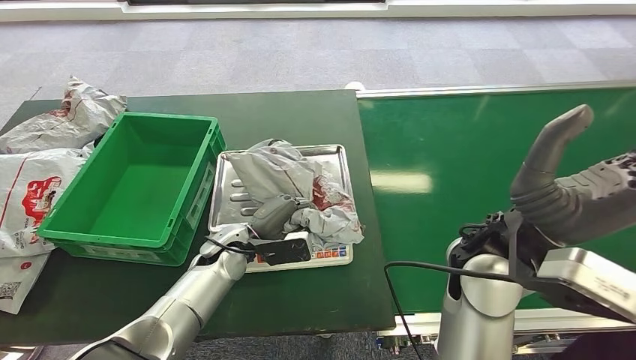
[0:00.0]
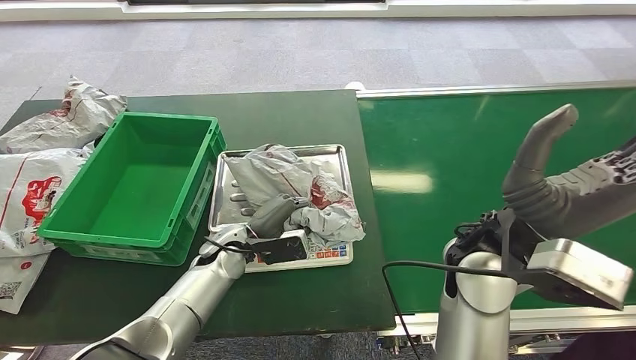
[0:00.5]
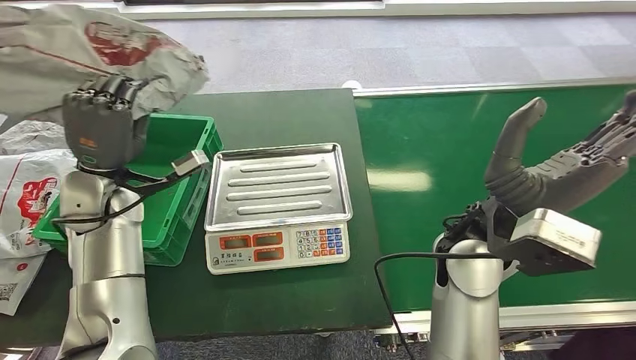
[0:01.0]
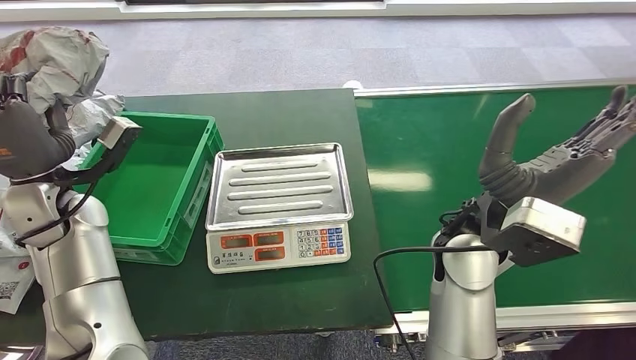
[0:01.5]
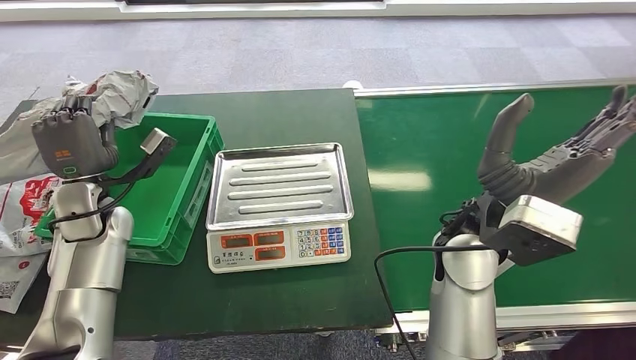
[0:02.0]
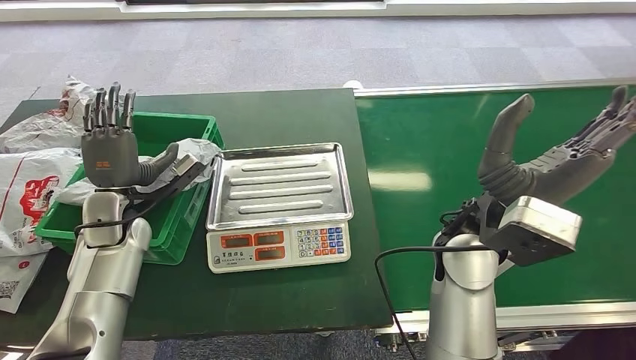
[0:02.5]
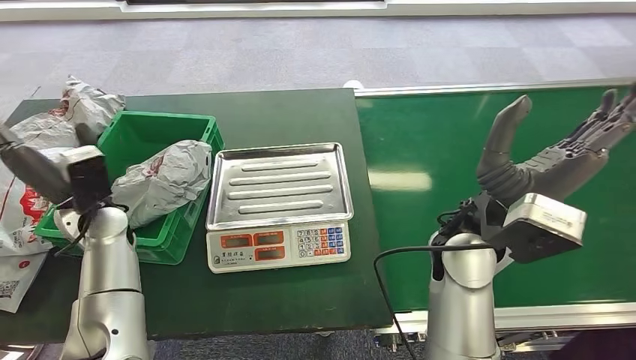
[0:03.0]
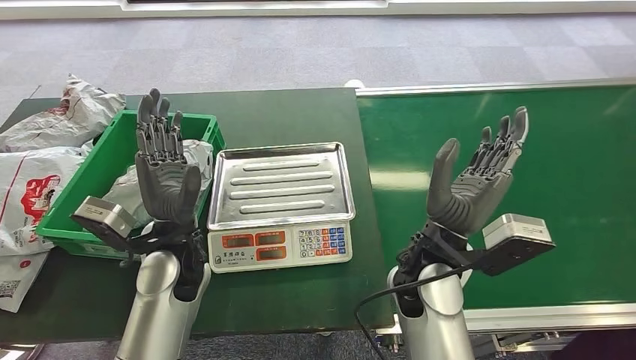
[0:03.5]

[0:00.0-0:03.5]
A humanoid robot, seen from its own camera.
Task of the whole recording: Weigh the package on the weighing device and place it in the left basket.
Step, 0:01.5 to 0:03.5: Place the package into the parcel locker.
